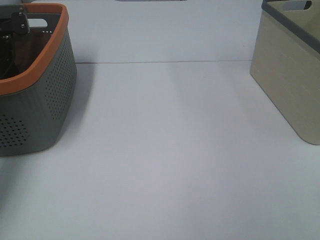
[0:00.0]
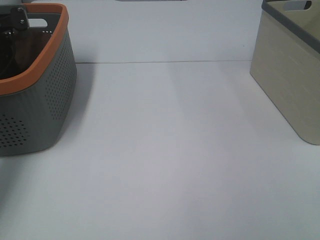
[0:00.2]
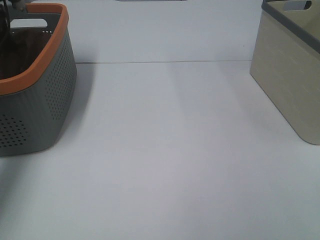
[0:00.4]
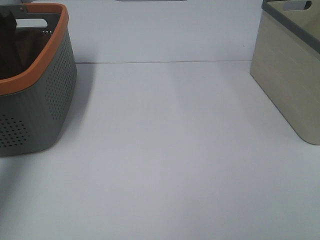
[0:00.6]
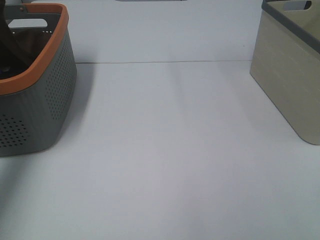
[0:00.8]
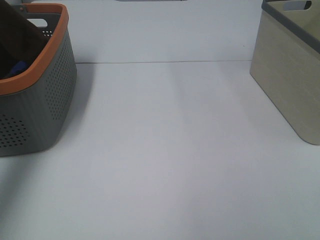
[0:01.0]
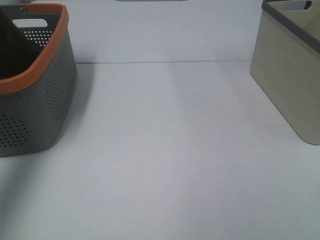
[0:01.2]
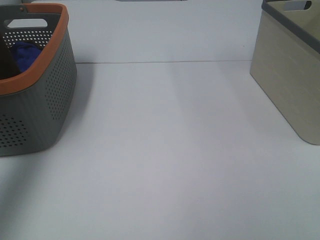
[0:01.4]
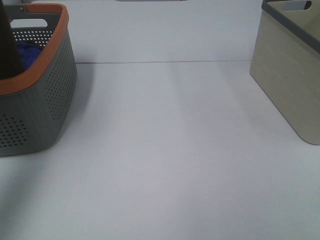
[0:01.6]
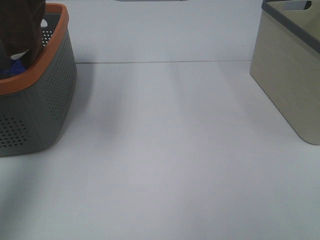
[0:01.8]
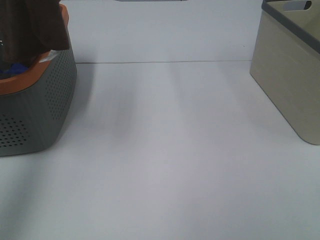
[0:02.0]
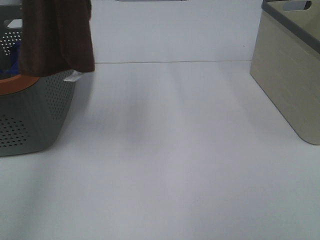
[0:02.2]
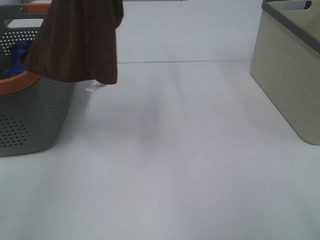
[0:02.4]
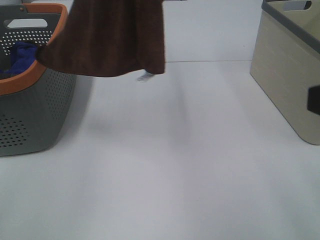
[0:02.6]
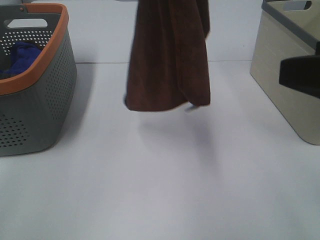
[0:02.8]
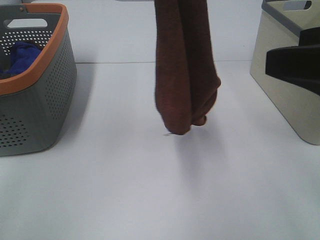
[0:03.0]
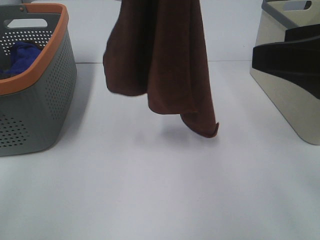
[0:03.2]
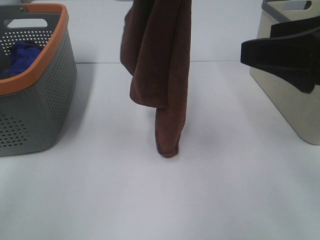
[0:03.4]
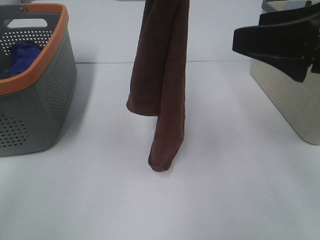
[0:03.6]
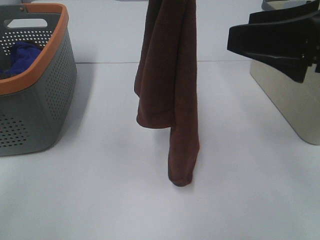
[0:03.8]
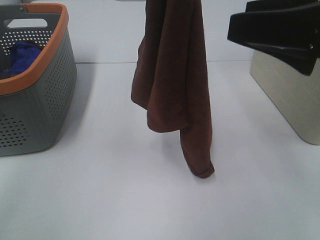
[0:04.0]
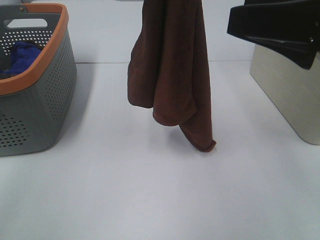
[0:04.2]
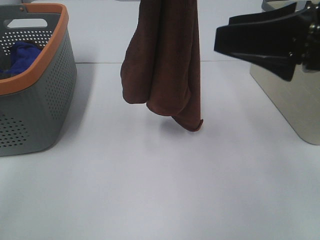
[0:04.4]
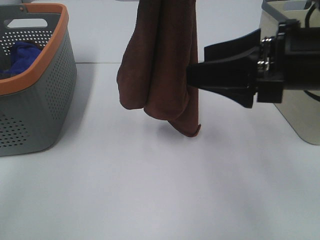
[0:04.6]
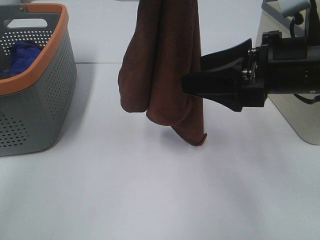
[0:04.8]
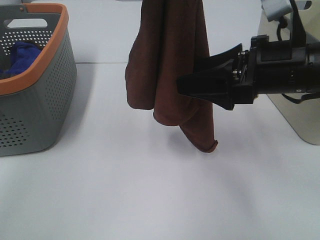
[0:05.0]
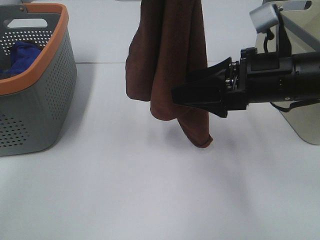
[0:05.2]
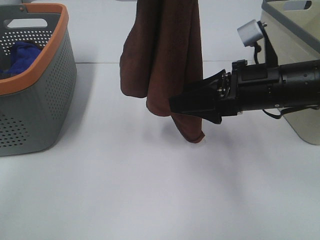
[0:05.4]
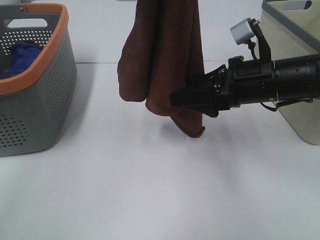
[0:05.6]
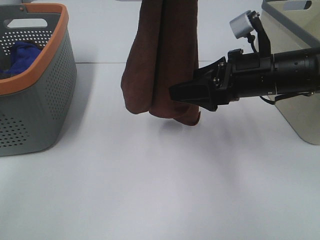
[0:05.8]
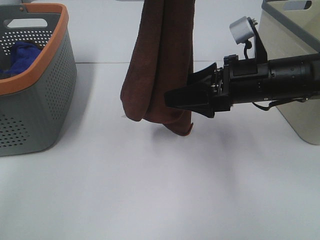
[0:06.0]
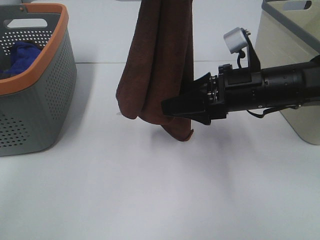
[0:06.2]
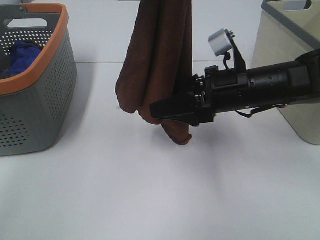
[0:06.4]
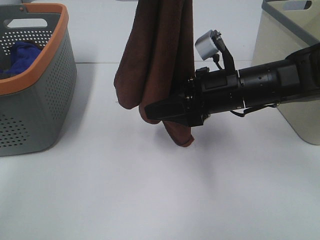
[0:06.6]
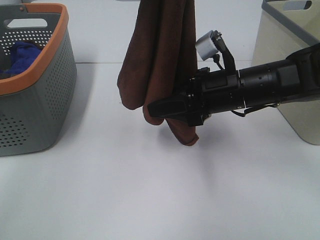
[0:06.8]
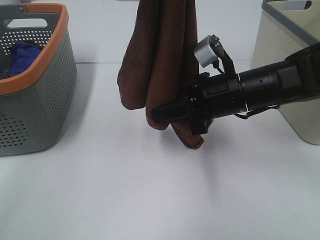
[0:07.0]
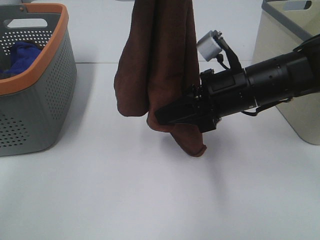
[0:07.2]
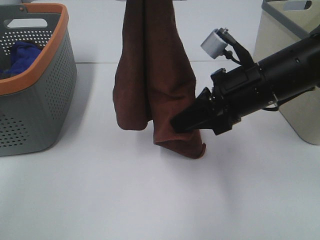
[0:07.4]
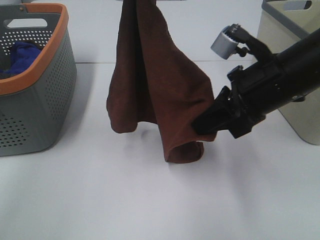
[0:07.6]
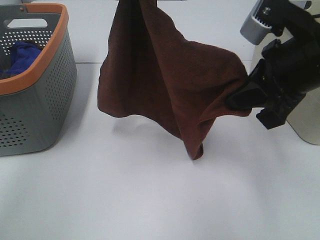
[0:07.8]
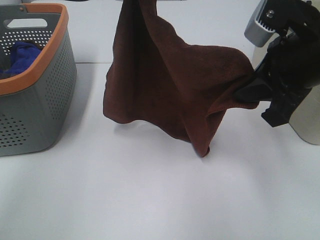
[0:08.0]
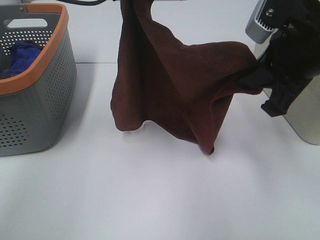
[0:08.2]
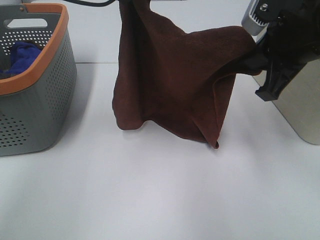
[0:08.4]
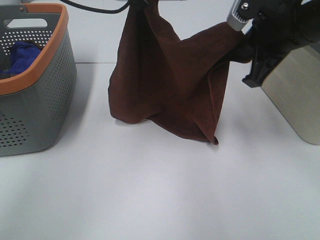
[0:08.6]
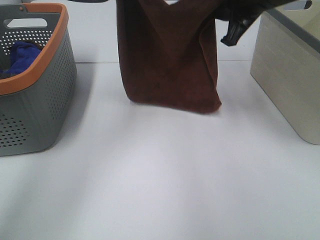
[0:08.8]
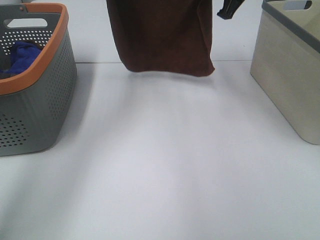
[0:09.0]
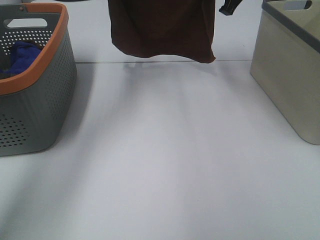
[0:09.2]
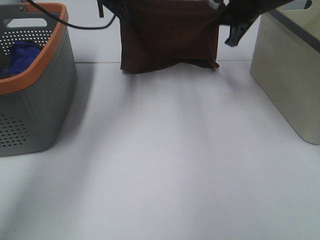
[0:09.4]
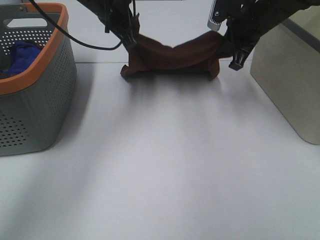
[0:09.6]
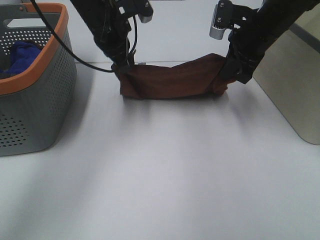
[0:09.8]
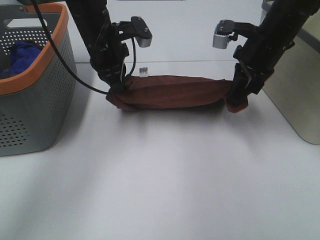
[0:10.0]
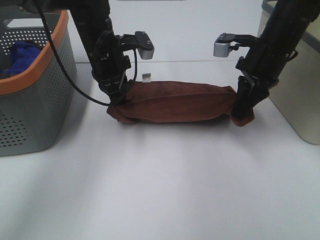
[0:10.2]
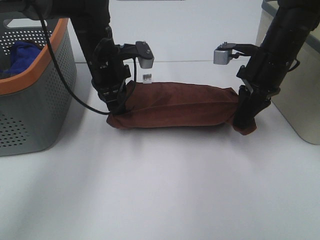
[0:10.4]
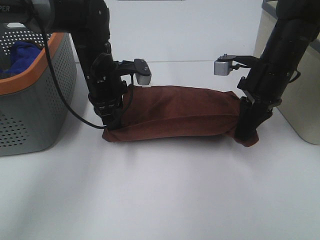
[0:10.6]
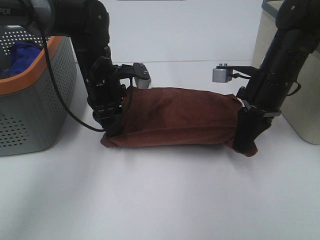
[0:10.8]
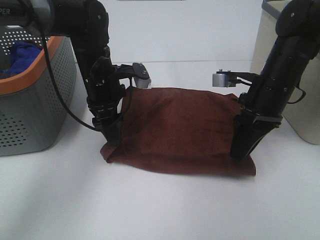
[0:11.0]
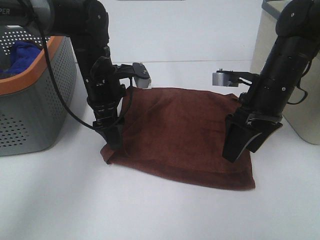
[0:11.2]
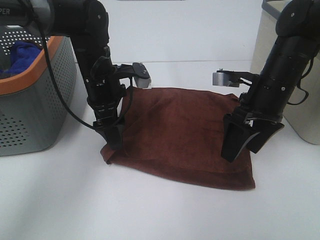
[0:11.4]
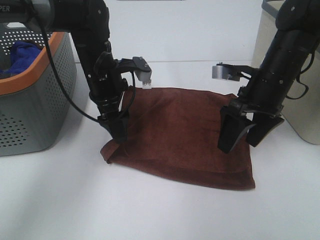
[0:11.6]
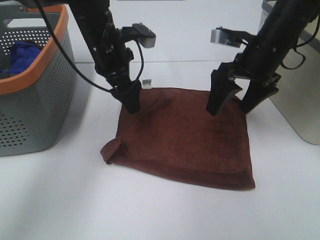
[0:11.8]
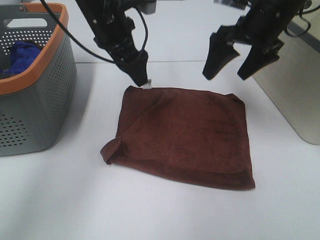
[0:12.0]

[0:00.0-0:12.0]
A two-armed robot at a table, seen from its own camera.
Task of the whole recording: Remove the towel and place it.
Step, 0:00.8 to 0:05.2: Right hand: grab a corner of the brown towel and straighten it.
Step, 0:05.4 to 0:07.0: Right hand: spread the brown towel flat on the table.
0:00.0 to 0:01.6: The left gripper goes about 40 cm upward and backward.
0:01.6 to 0:03.0: The left gripper moves to the right, about 20 cm, while the right gripper moves forward, about 15 cm.
0:03.0 to 0:04.4: The right gripper heads forward, covering some 5 cm.
0:04.4 to 0:06.0: The right gripper shifts about 15 cm downward and forward.
0:06.0 to 0:07.6: The right gripper heads upward, covering about 5 cm, and closes up.
0:07.6 to 0:09.0: The right gripper moves forward and upward, approximately 20 cm. Meanwhile the left gripper goes about 15 cm forward and downward.
0:09.0 to 0:10.4: The right gripper moves downward and backward, roughly 15 cm; the left gripper is displaced downward by some 20 cm.
0:10.4 to 0:12.0: The grippers both shift upward by about 10 cm. The left gripper opens, while the right gripper opens.

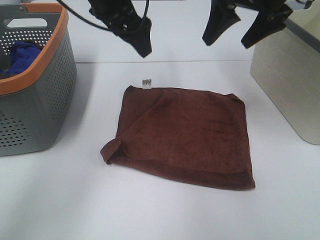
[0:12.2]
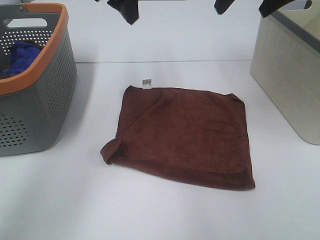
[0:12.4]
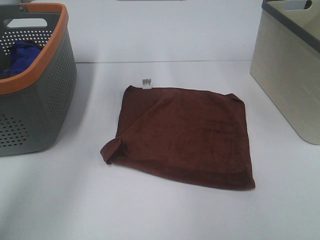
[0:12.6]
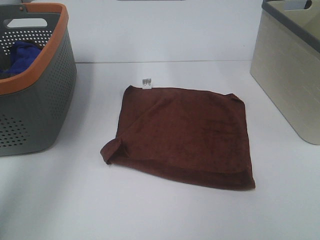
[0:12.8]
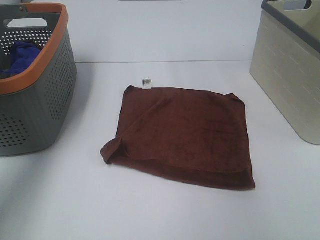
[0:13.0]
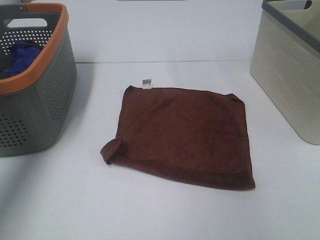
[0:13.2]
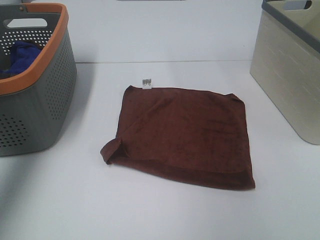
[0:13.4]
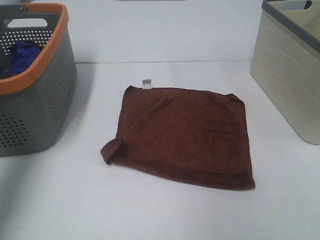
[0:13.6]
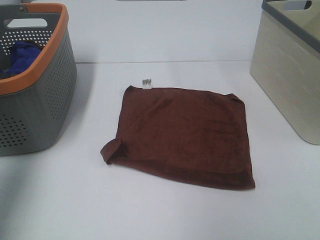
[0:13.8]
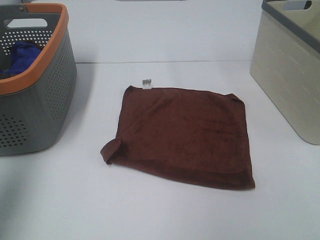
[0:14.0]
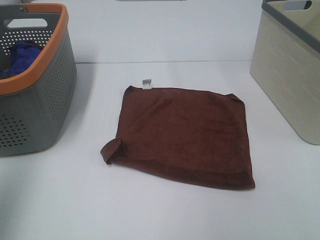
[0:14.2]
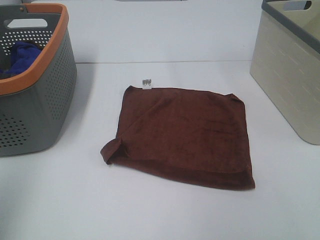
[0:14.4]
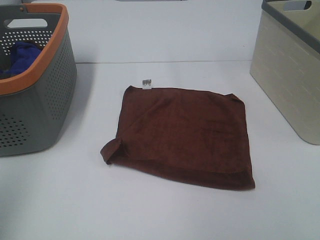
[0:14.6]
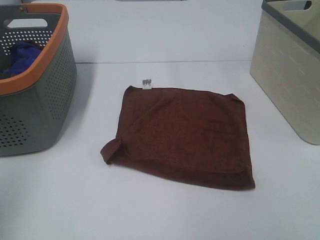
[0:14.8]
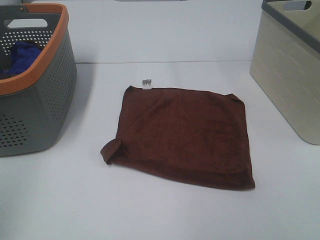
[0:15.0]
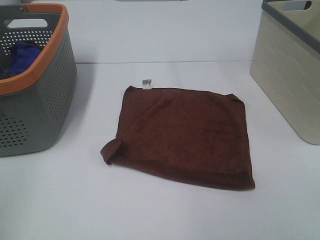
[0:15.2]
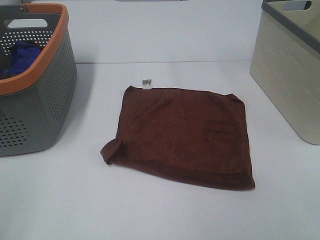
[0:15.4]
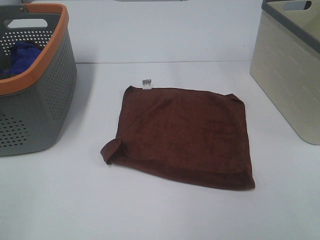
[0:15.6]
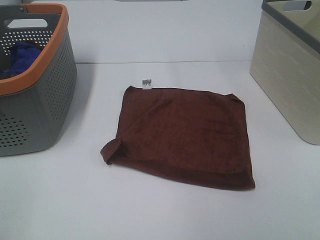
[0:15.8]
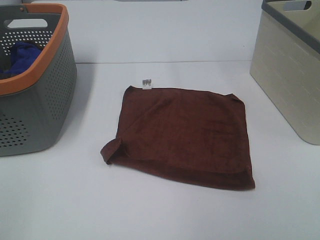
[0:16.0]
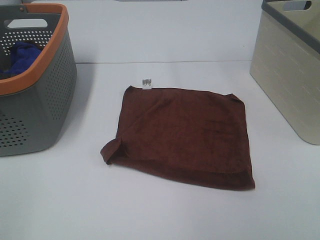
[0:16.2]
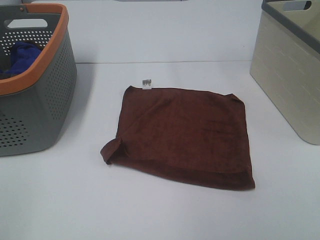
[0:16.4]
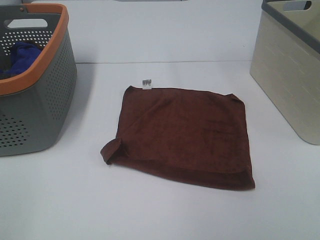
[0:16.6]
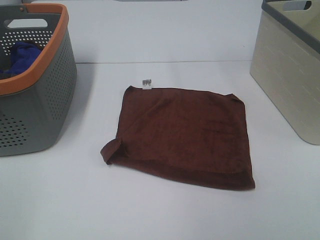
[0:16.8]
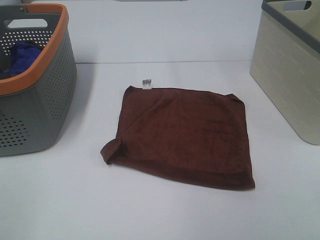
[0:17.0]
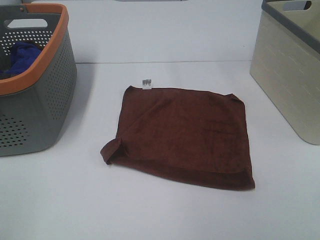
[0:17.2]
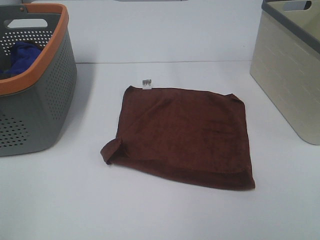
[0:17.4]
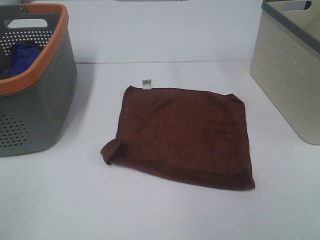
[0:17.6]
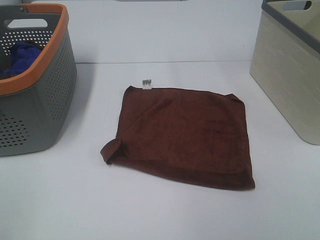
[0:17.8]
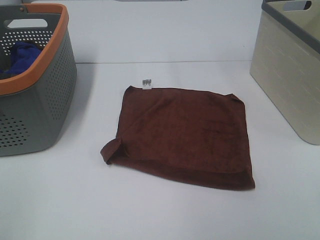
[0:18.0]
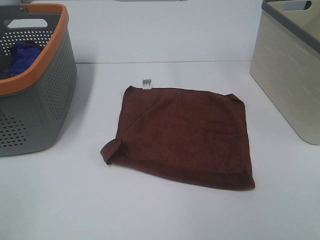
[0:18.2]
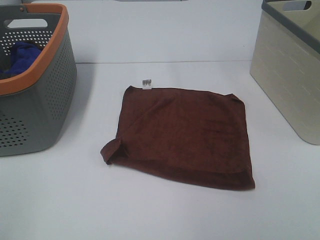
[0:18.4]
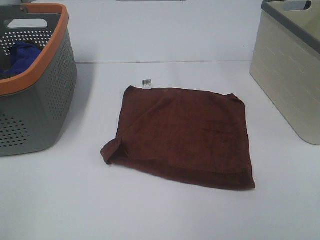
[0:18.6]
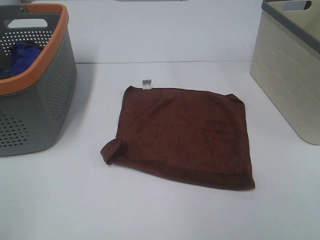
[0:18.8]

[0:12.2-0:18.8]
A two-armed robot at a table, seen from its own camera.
Task of the whole recording: Remove the towel and place it.
0:12.2 to 0:13.8: The left gripper heads to the left, backward and upward, covering about 35 cm. The right gripper travels backward and to the right by approximately 25 cm.
0:13.8 to 0:15.4: The left gripper is displaced backward by approximately 20 cm.
0:17.2 to 0:18.8: Both grippers stay about where they are.

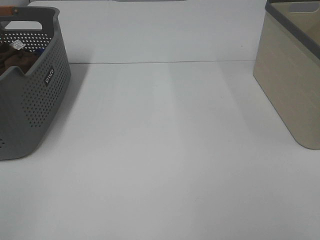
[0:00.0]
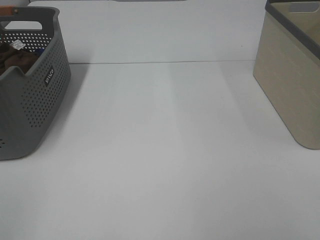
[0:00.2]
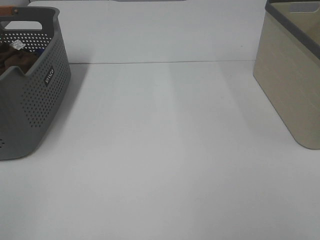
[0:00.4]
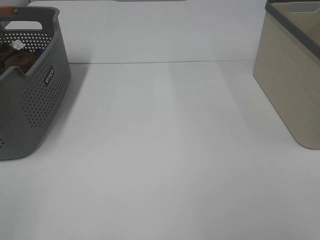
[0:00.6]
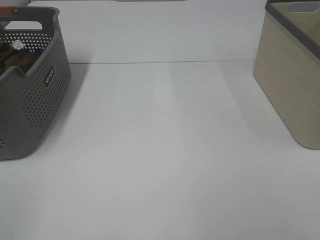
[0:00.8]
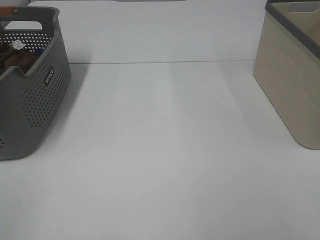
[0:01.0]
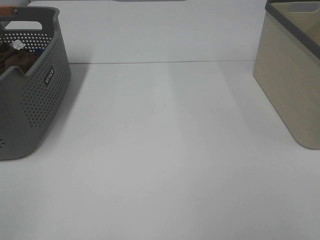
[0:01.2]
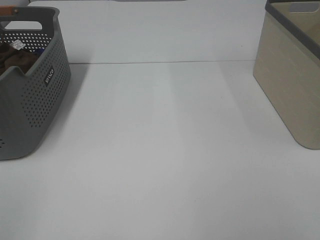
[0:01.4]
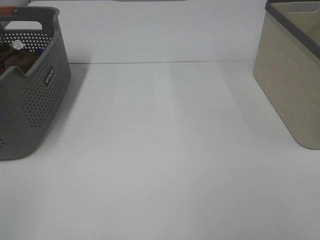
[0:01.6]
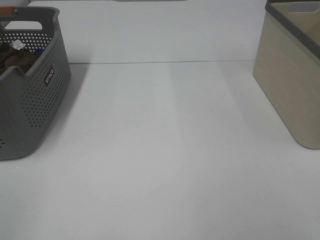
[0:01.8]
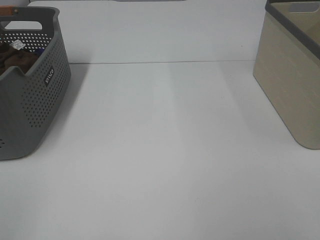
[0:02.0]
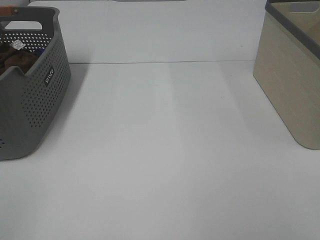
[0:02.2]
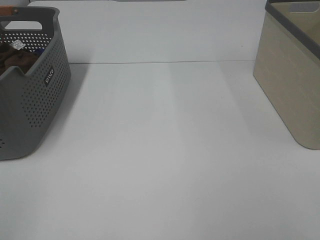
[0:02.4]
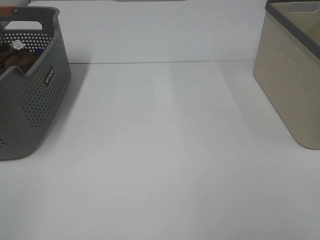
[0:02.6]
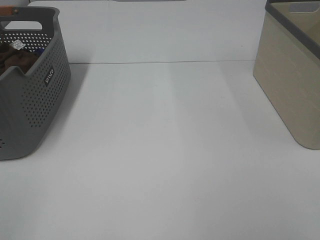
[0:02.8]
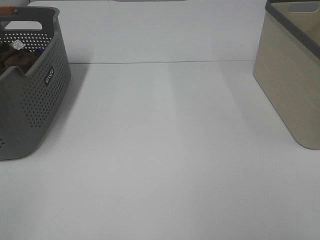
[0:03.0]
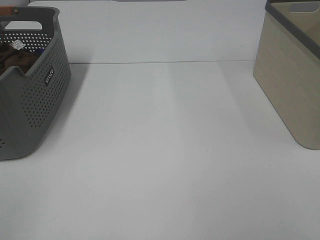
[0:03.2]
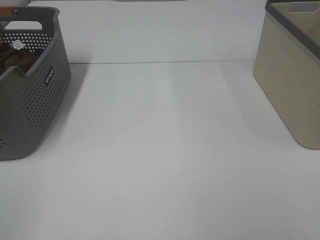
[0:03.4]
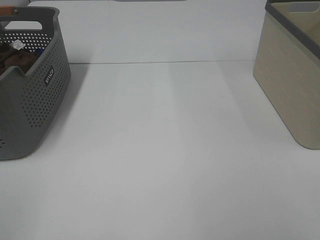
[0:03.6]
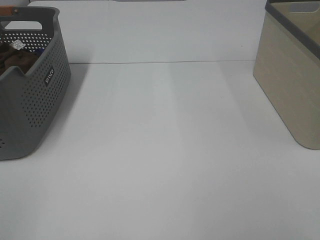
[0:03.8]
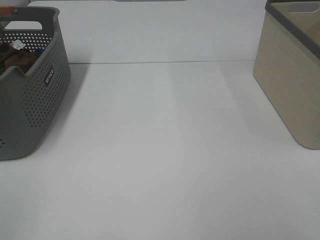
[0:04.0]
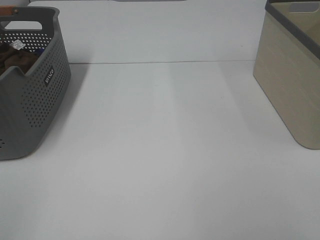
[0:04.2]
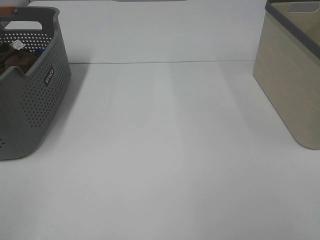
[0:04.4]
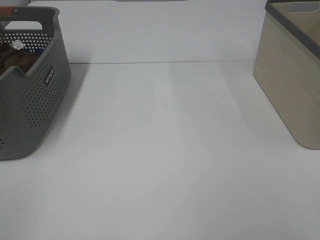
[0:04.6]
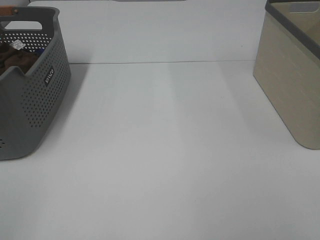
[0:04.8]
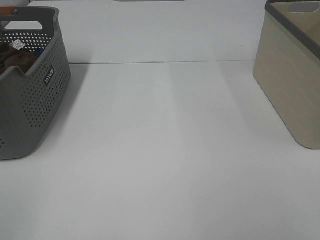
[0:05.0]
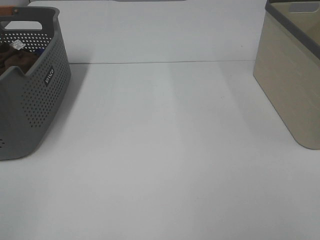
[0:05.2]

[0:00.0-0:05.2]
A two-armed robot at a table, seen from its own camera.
Task of the whole recording: Remove the towel and place it.
0:00.0 to 0:05.2: Both grippers stay about where they are.
